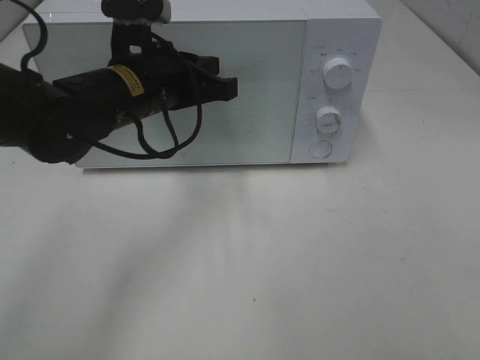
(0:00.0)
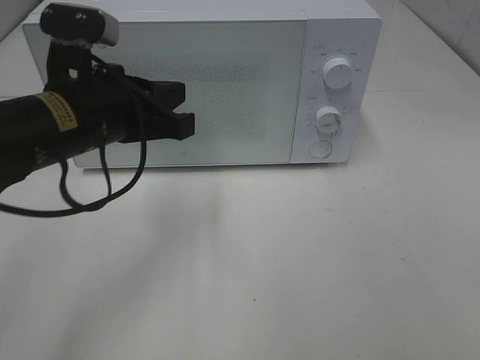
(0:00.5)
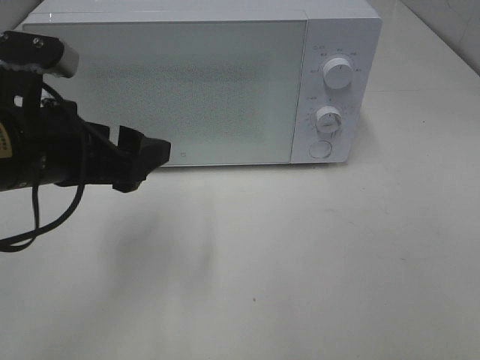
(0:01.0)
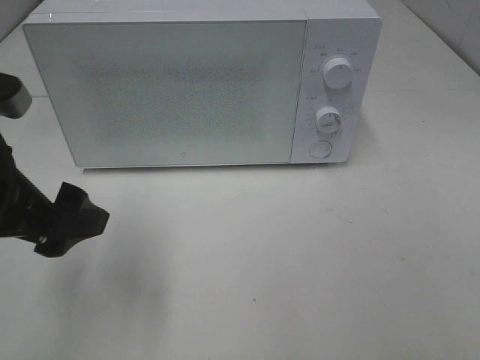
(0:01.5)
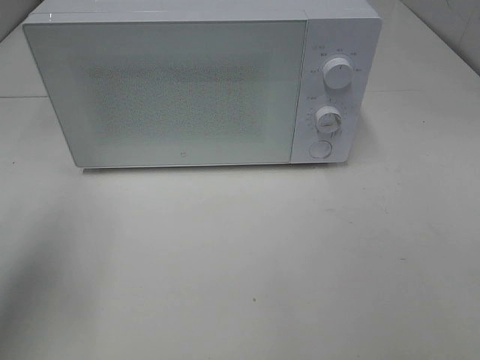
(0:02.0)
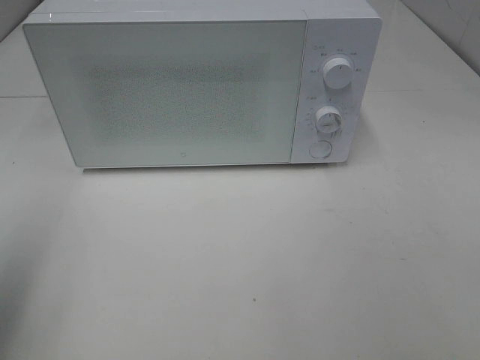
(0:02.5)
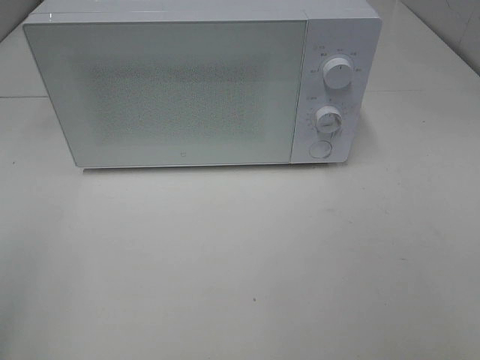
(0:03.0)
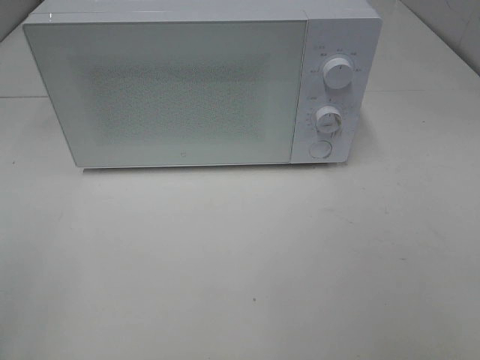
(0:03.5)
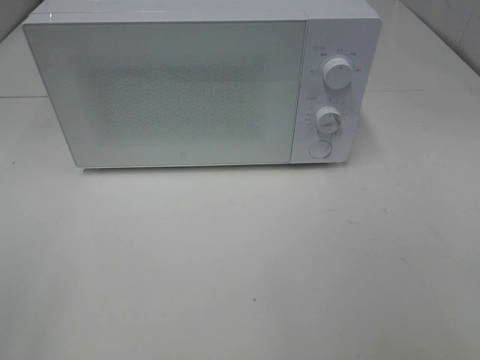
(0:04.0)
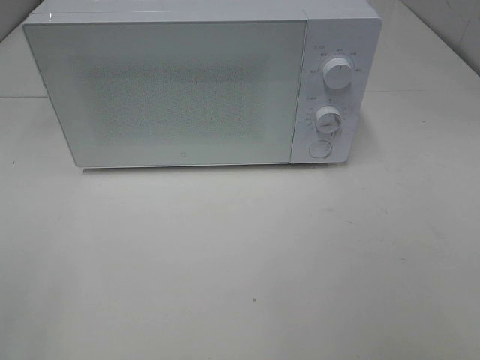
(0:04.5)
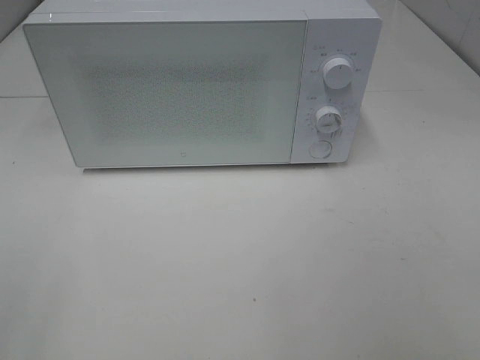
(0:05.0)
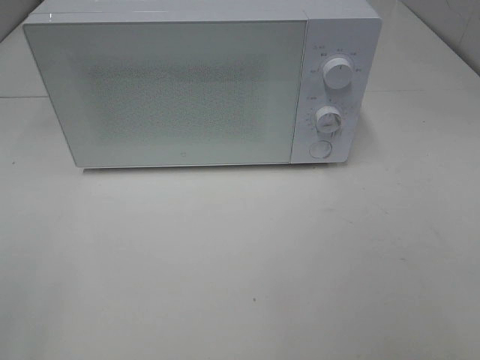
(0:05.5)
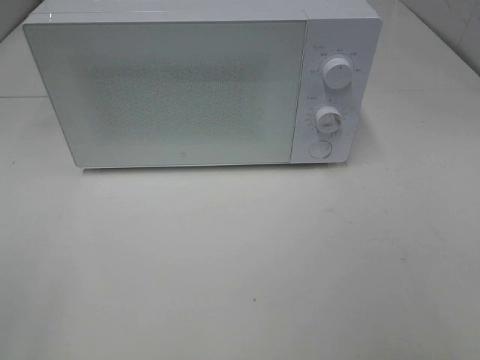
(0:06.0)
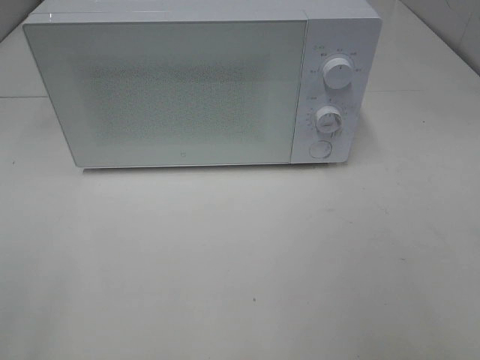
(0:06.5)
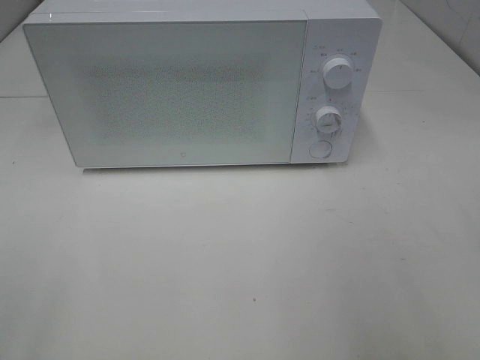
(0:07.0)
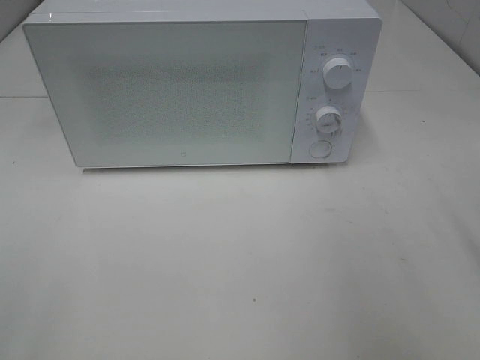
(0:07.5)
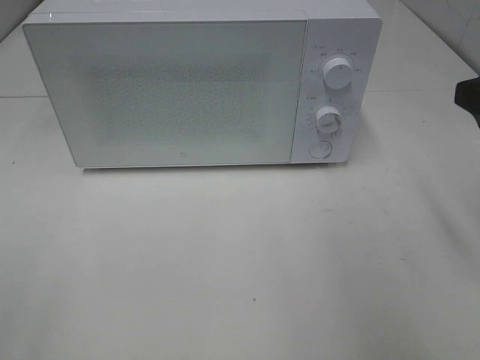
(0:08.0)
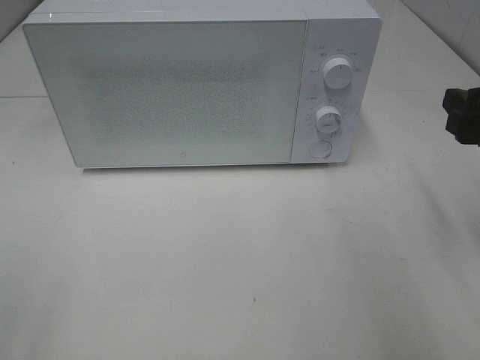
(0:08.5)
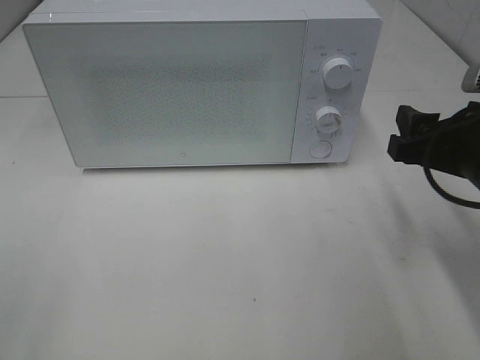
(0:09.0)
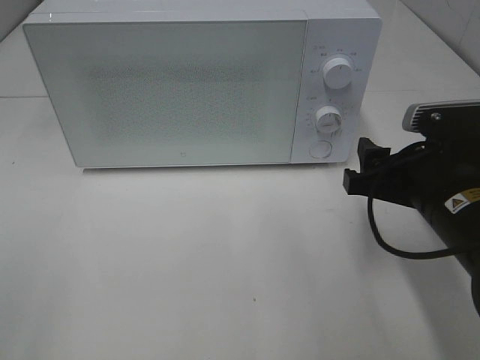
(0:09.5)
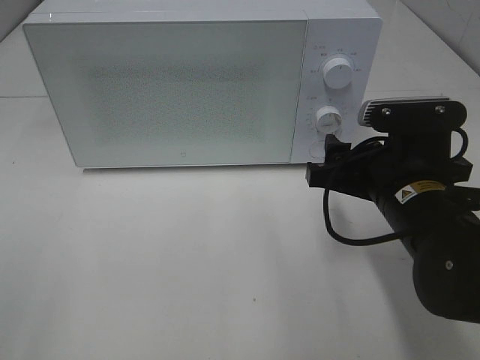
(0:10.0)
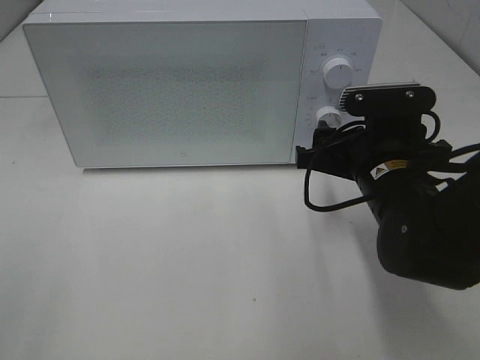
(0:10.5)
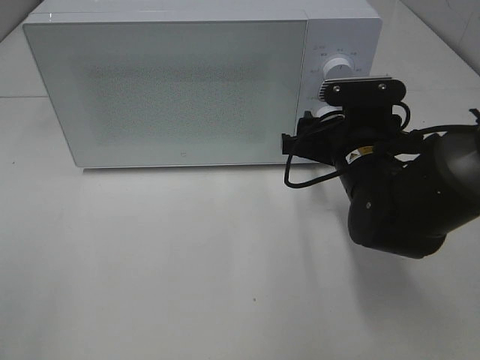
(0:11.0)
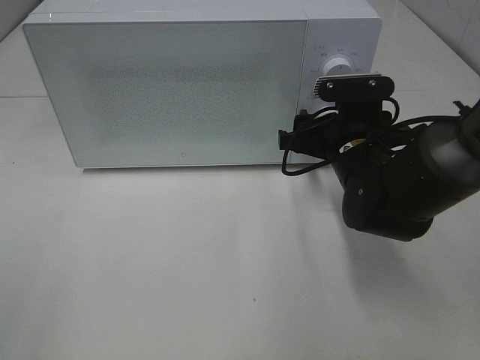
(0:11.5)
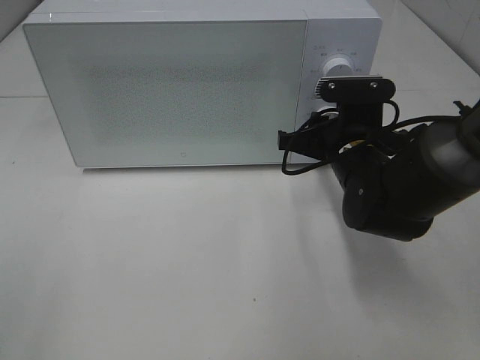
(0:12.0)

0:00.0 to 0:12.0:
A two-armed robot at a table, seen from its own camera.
Task of the whole recording: Heat Sandwich.
0:00.0 to 0:02.0: The left gripper heads to the left and backward, covering approximately 25 cm, and opens.
0:02.0 to 0:04.0: The left gripper shifts approximately 20 cm backward.
0:04.0 to 0:06.0: Both grippers stay about where they are.
0:06.0 to 0:08.0: The right gripper heads forward, covering approximately 20 cm.
0:08.0 to 0:10.0: The right gripper heads downward and to the left, covering some 15 cm.
0:10.0 to 0:12.0: The right gripper goes about 10 cm forward, and closes its fingers.

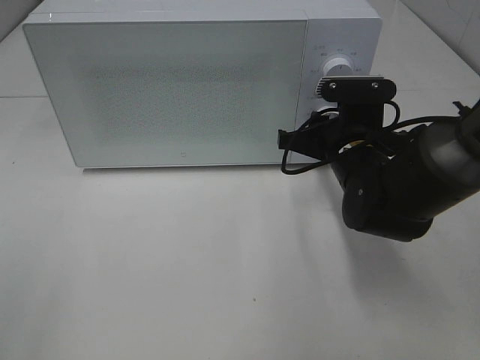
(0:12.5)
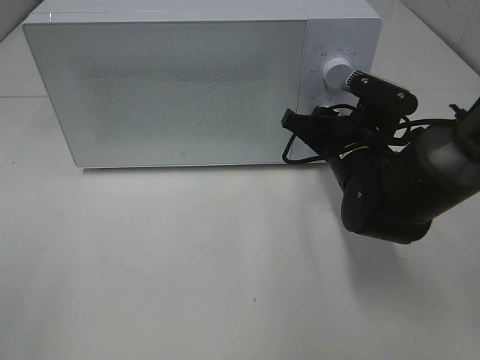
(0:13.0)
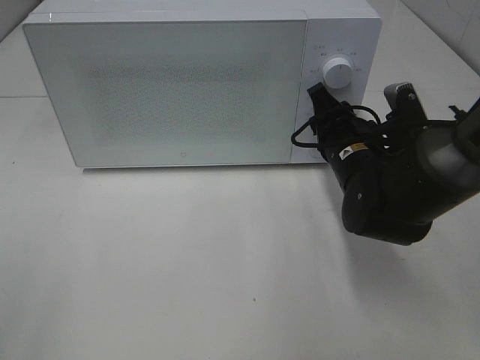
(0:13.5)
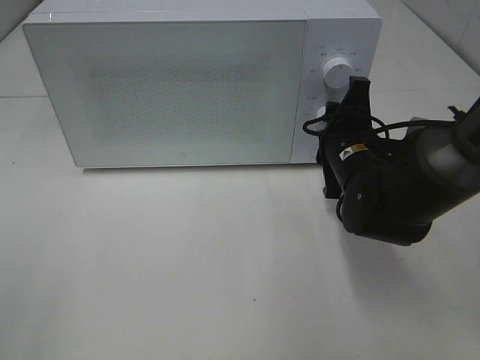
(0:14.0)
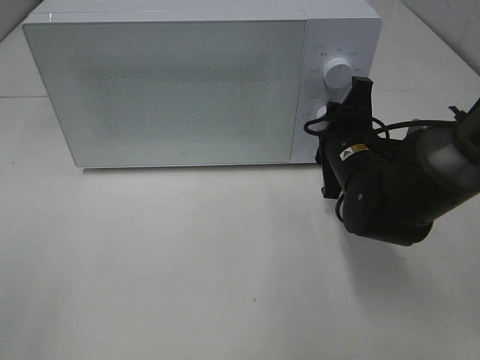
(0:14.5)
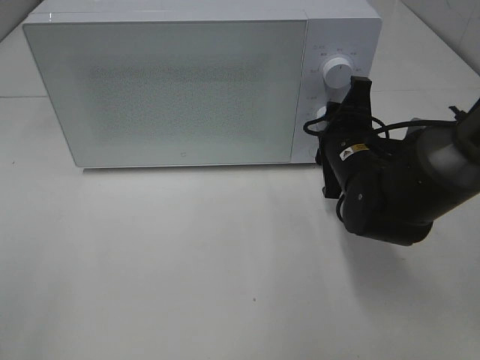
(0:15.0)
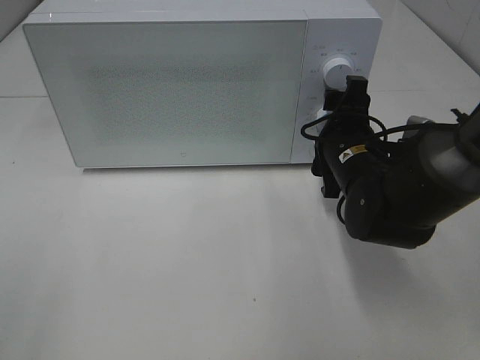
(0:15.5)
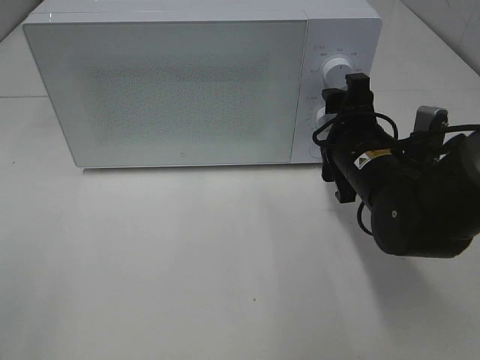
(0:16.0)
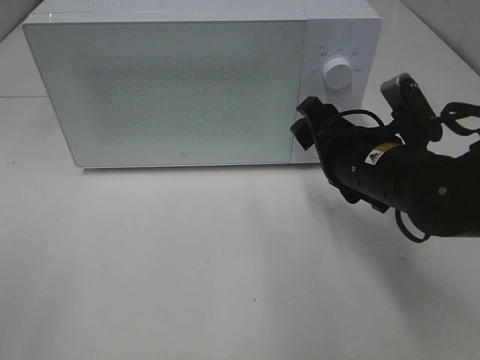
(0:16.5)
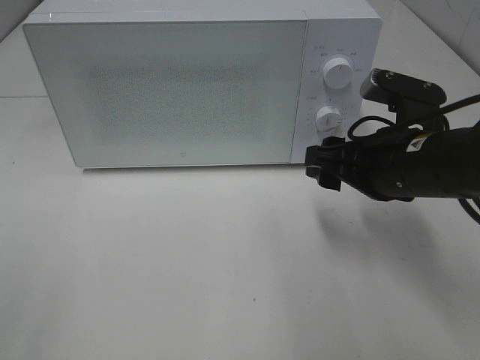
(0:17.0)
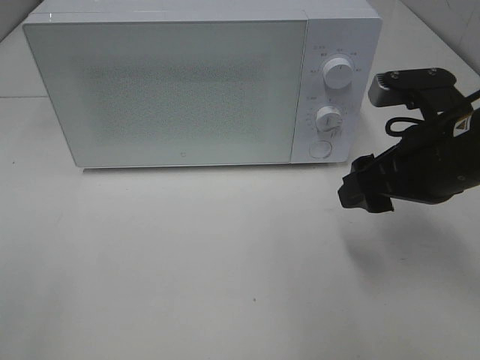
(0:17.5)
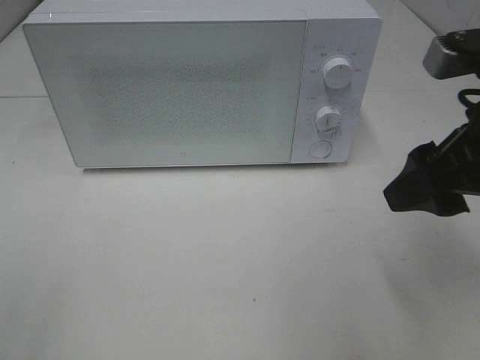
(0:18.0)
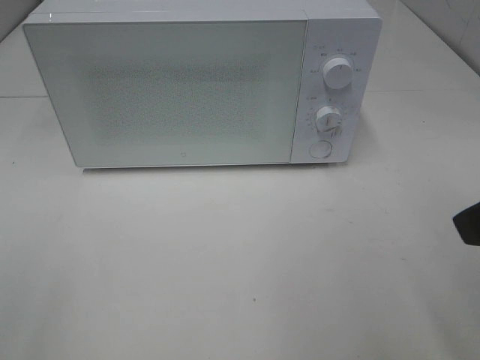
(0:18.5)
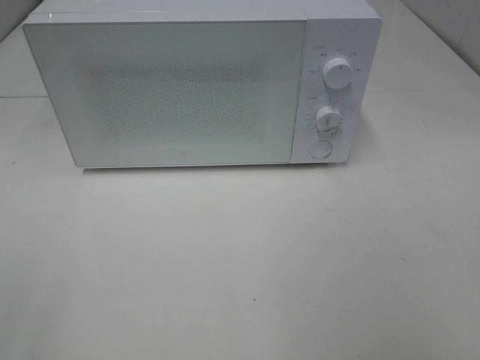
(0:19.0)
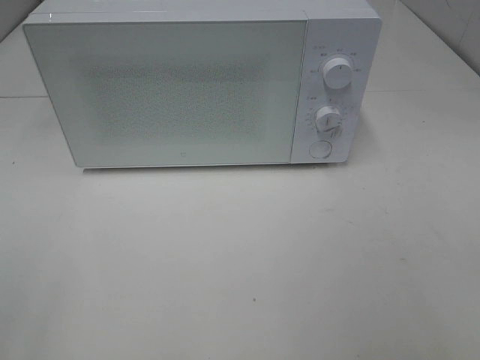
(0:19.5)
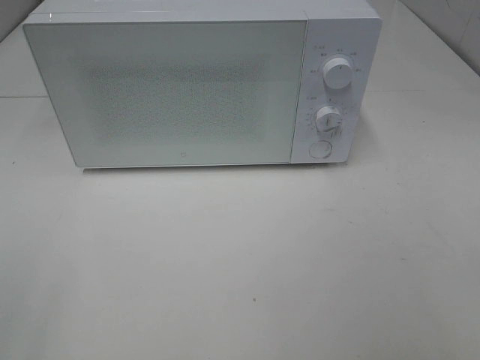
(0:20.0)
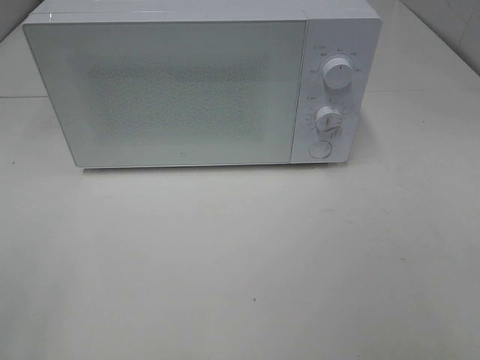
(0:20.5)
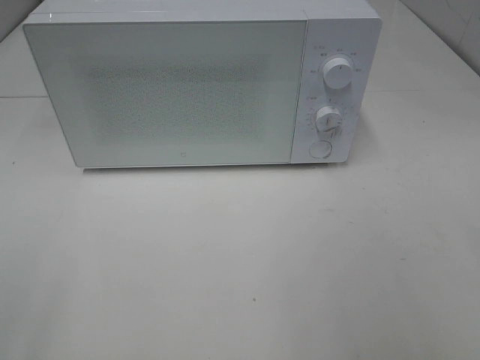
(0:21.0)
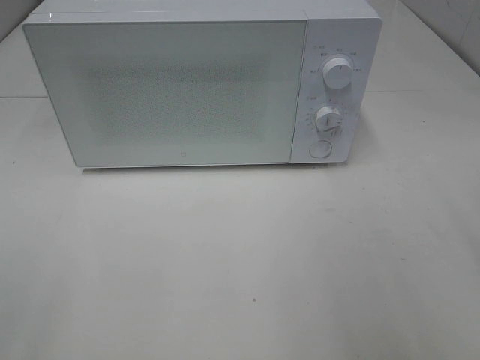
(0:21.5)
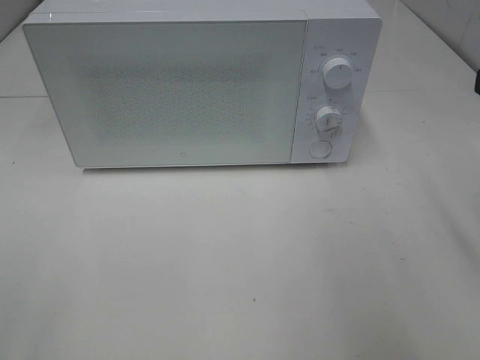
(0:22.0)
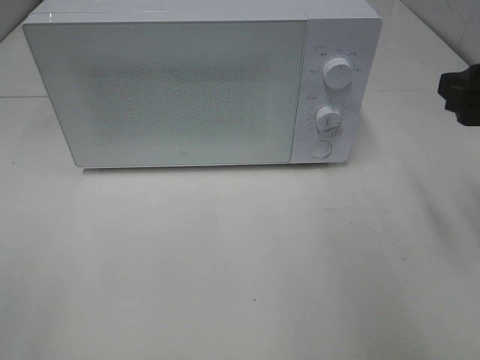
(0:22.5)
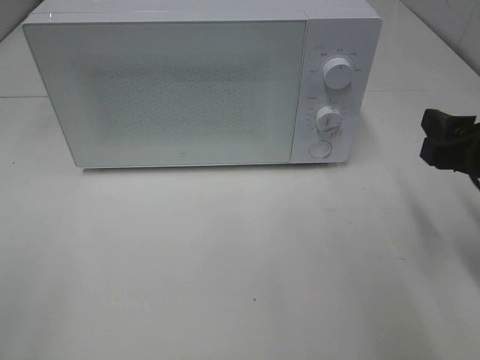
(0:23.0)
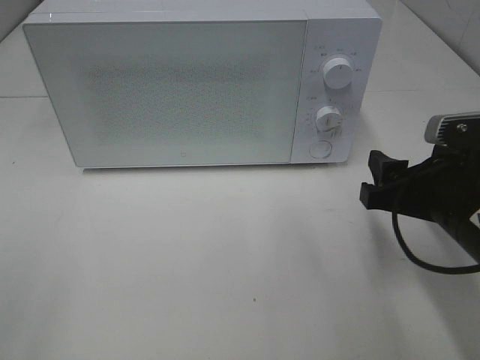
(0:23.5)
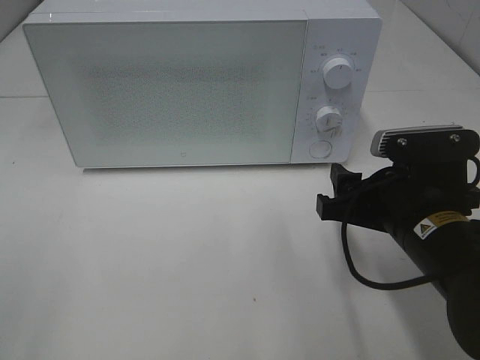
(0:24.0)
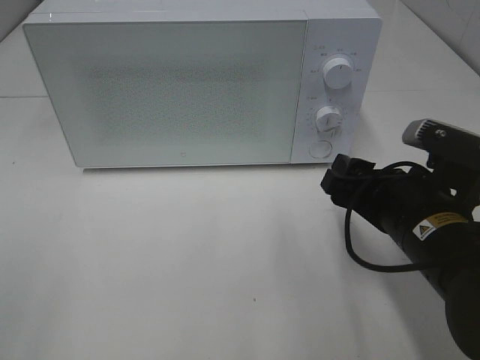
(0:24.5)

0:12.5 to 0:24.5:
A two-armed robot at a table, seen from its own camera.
Task of the whole recording: Heat Sandwich.
Step, 0:12.5 to 0:15.5: Right hand: twist timer button.
0:14.5 to 0:16.5: The right gripper heads backward, covering about 5 cm, and opens its fingers.
0:16.5 to 0:18.5: The right gripper moves upward, backward and to the right, some 20 cm.
0:20.5 to 0:22.5: The right gripper shifts approximately 20 cm forward.
0:22.5 to 0:24.5: The right gripper travels downward and to the left by approximately 15 cm.

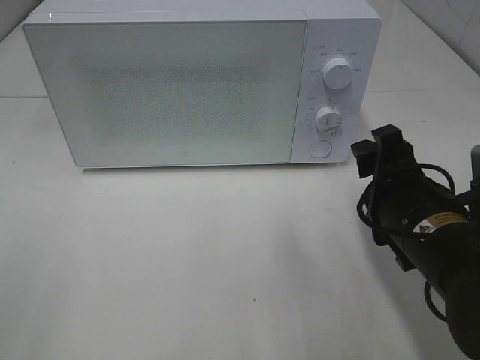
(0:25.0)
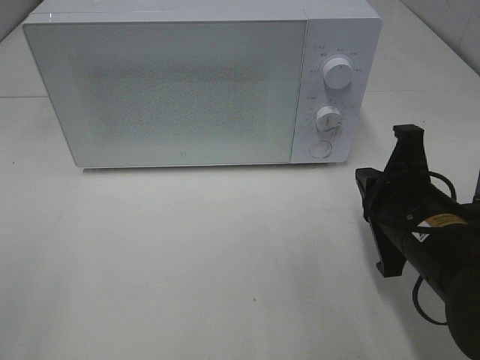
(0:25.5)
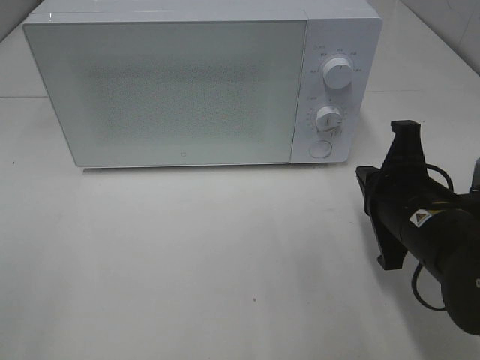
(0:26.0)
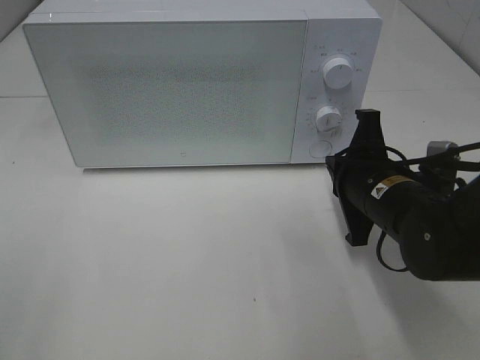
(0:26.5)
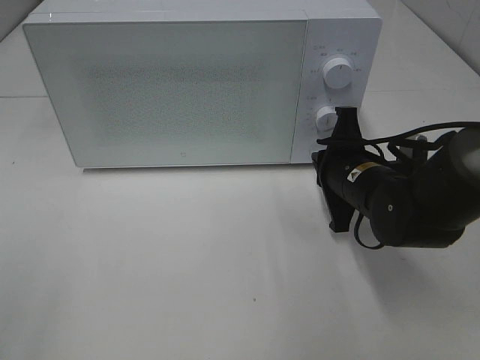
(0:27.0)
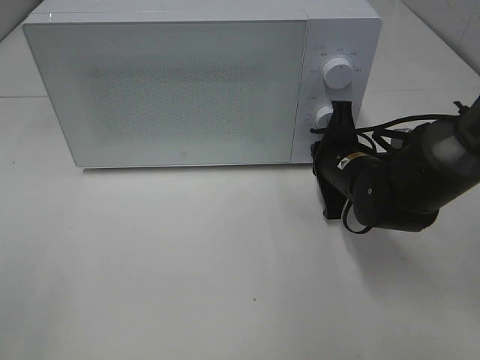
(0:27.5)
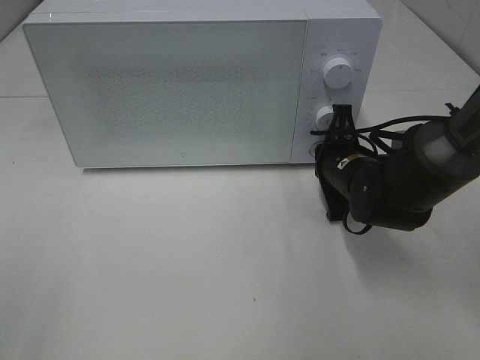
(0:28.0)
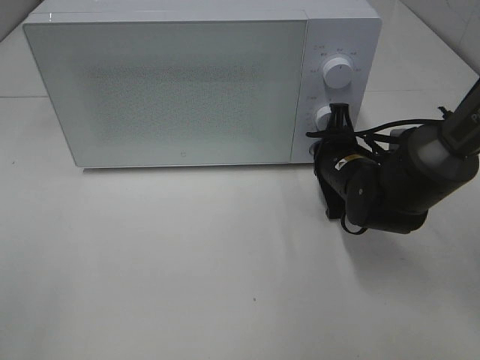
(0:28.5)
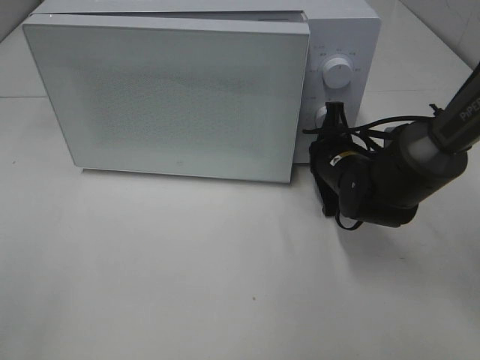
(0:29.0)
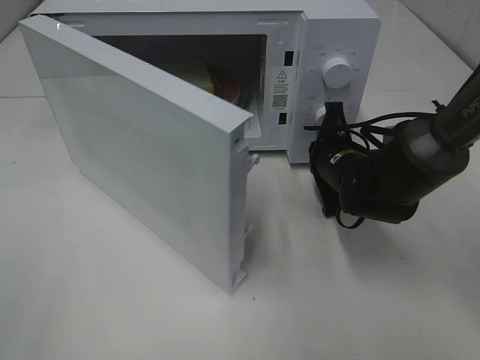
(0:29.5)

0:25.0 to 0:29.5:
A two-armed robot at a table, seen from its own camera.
Task of the whole recording: Heat Sandwich.
0:25.0 to 0:27.0: The right gripper is displaced forward by some 10 cm, and closes up.
0:27.0 to 0:29.5: The right gripper heads forward, covering about 5 cm.
